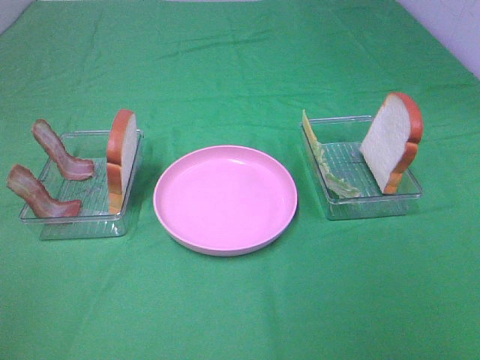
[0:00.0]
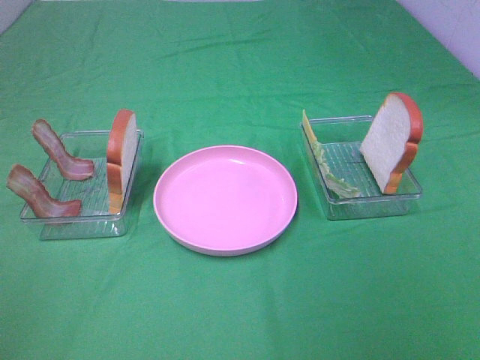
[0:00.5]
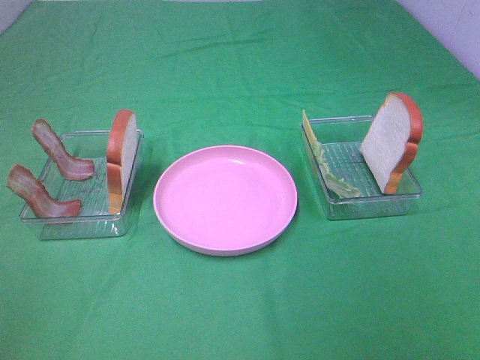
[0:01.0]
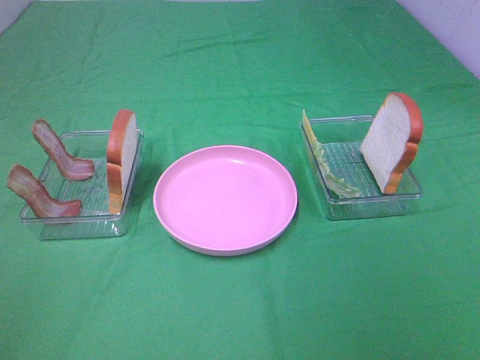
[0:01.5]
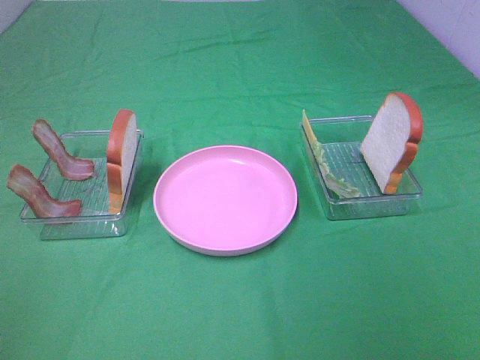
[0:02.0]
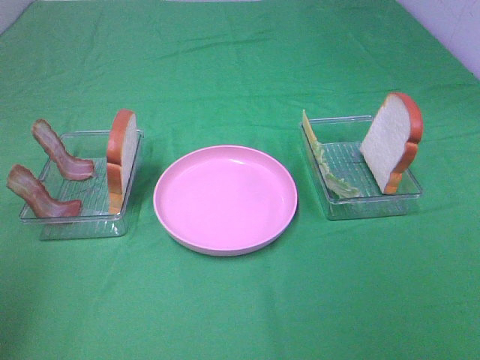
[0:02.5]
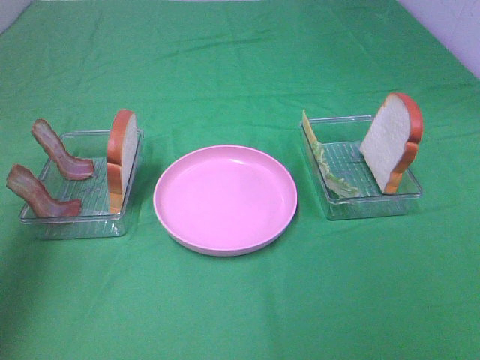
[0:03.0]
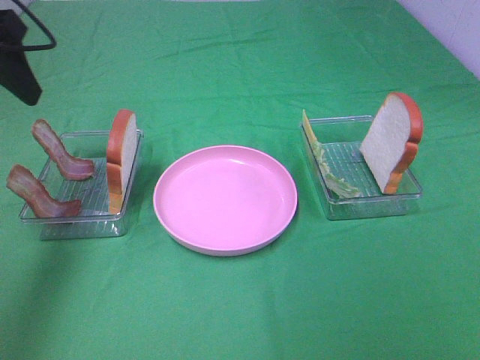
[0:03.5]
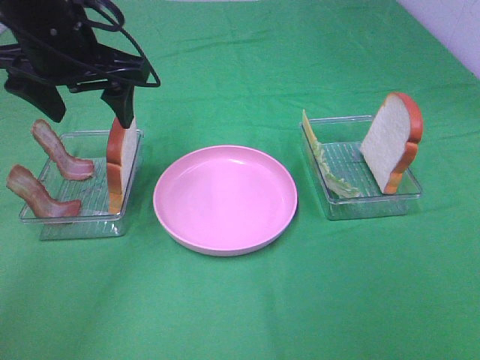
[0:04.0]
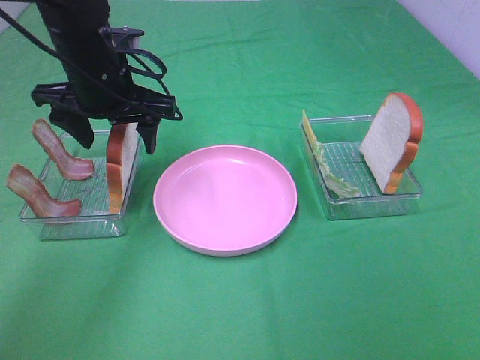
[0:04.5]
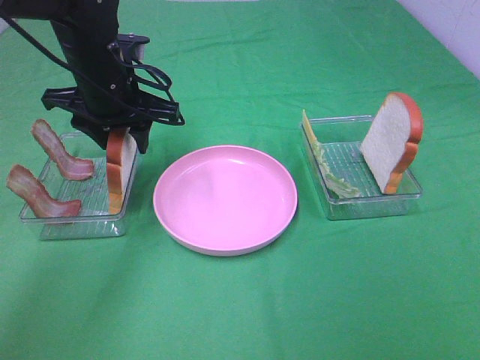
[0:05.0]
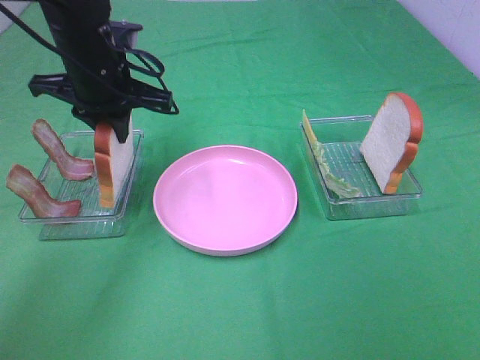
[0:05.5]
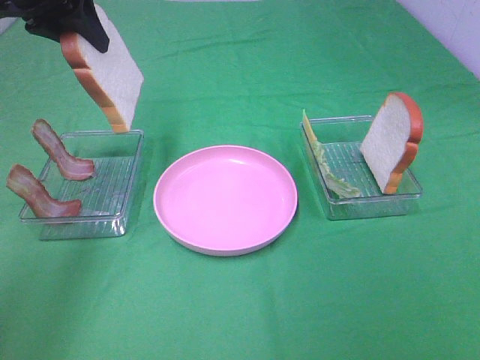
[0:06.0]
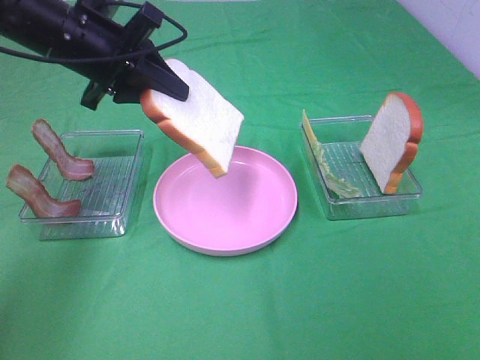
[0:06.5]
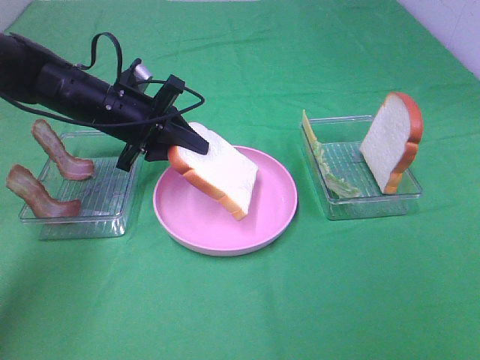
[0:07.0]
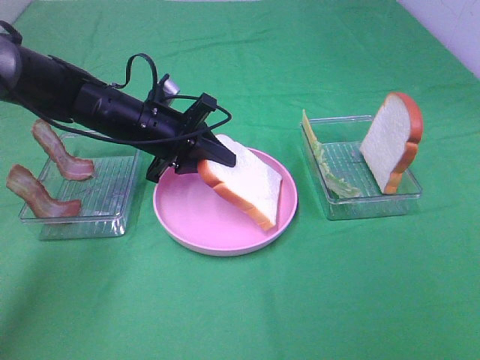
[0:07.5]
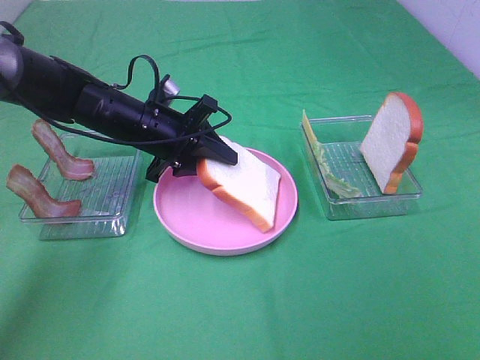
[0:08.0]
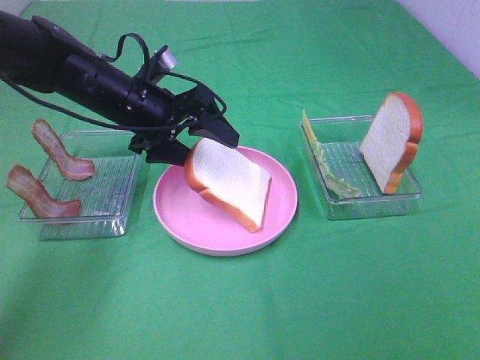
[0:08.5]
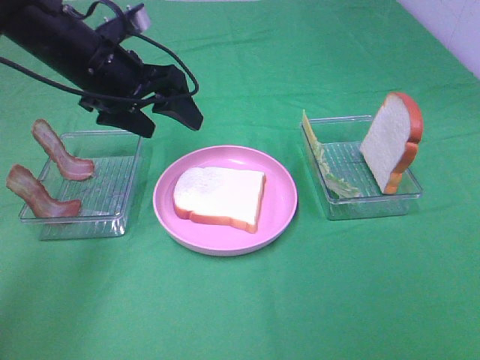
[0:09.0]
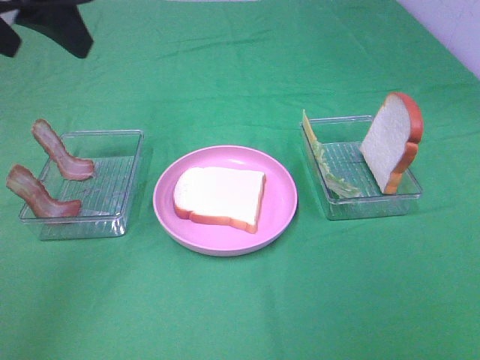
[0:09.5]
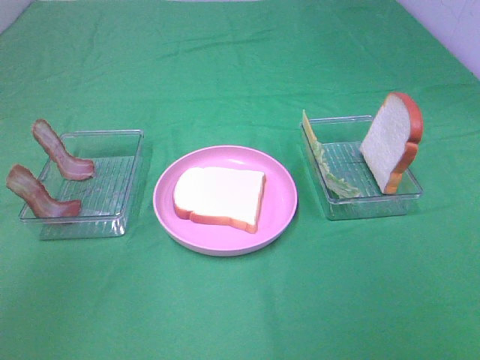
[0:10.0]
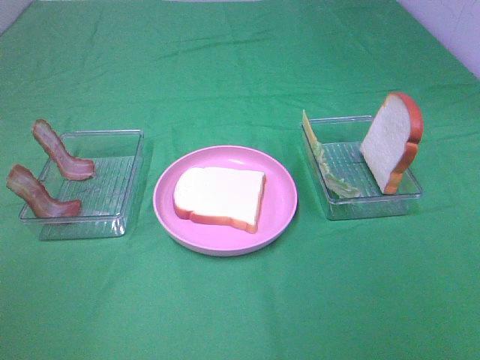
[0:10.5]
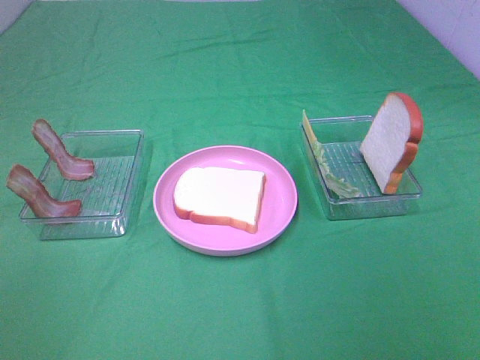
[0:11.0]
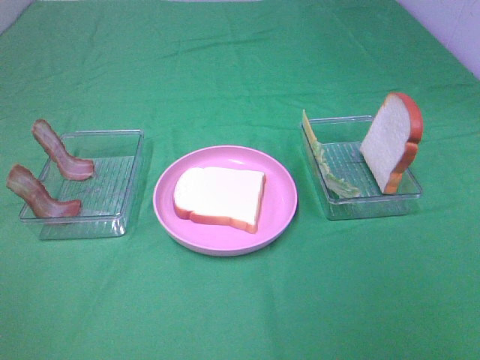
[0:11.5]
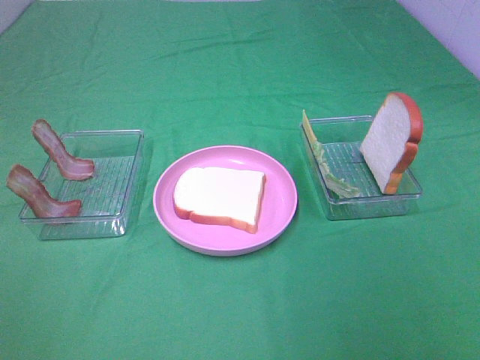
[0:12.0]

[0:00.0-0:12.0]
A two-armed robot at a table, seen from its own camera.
Task of the whole recording: Make sandwiches.
Step, 0:00.0 to 0:05.5: Left hand:grab the bread slice.
Step, 0:06.0 to 0:08.5: Left hand:place the bread slice on the plate.
0:00.0 to 0:02.0: Neither gripper changes place.
0:02.0 to 0:04.0: The left gripper goes approximately 40 cm forward and to the right.
0:04.0 to 0:06.0: The left gripper is displaced upward by about 5 cm, and closes up.
0:06.0 to 0:08.0: The left gripper is displaced downward by about 20 cm.
0:08.0 to 0:10.0: The left gripper is displaced upward, backward and to the left by about 40 cm, and opens its fingers.

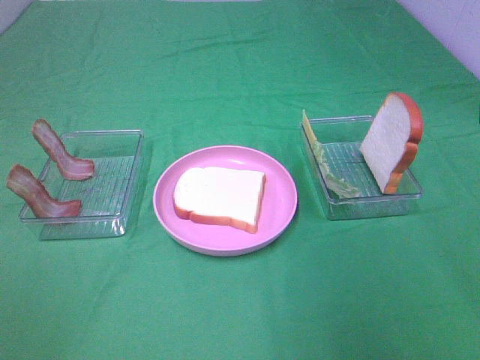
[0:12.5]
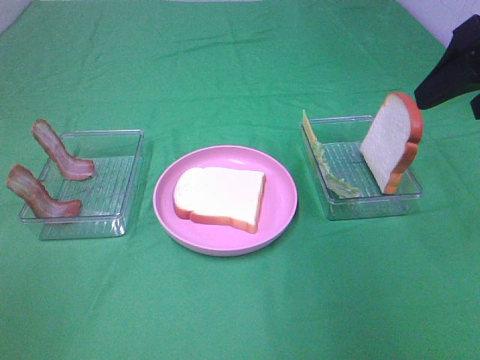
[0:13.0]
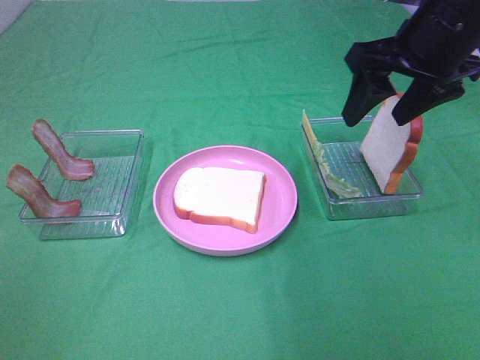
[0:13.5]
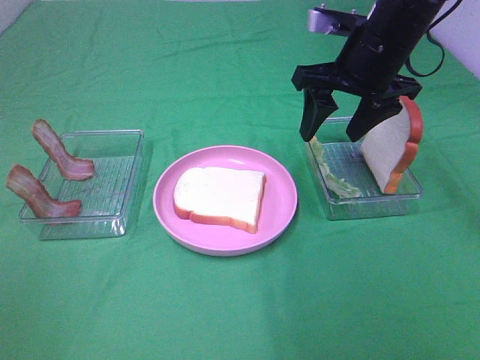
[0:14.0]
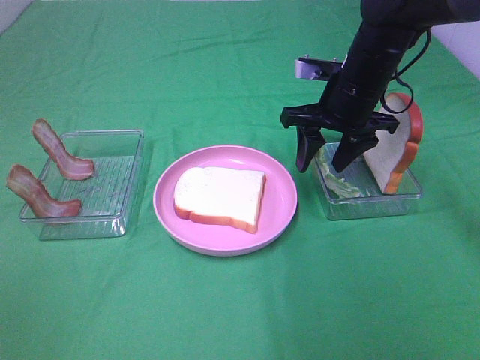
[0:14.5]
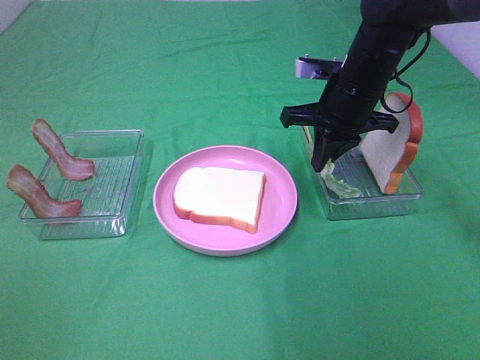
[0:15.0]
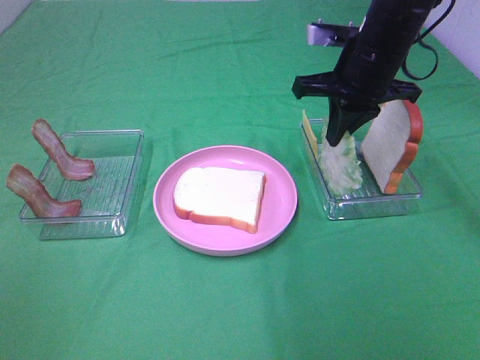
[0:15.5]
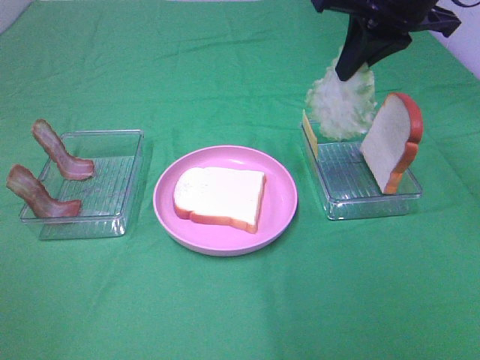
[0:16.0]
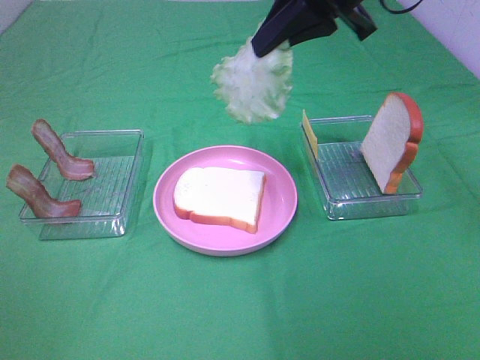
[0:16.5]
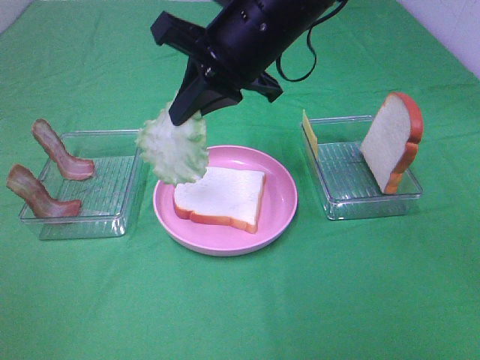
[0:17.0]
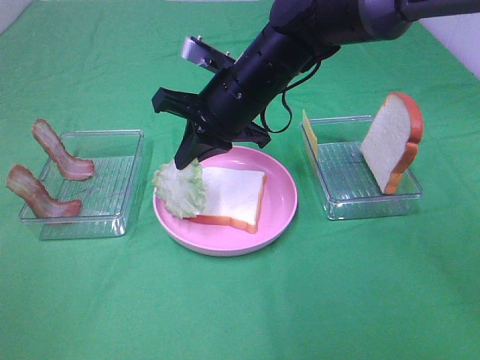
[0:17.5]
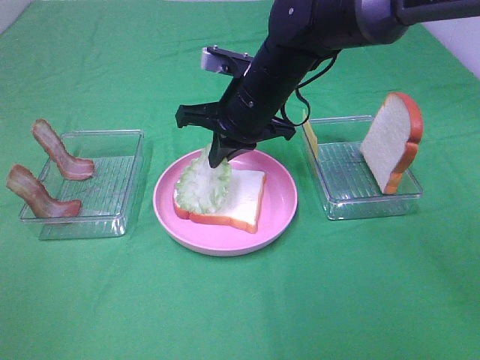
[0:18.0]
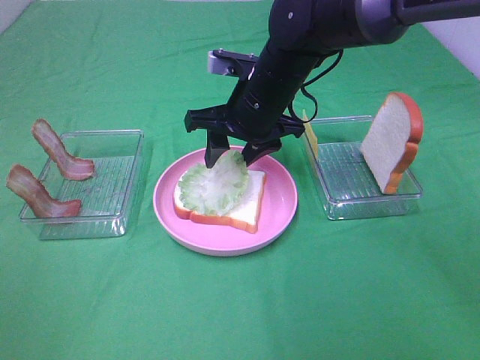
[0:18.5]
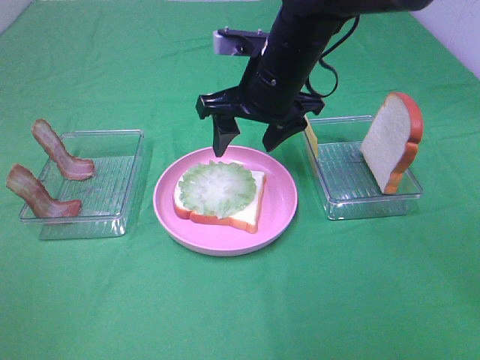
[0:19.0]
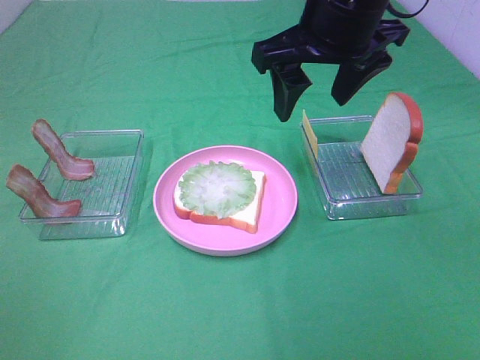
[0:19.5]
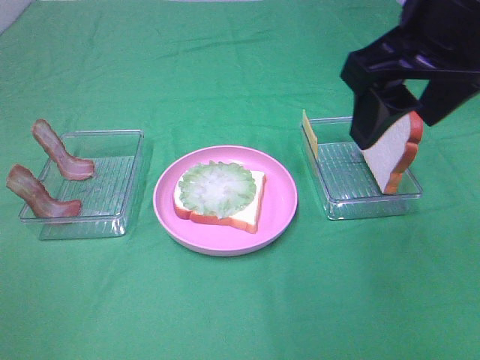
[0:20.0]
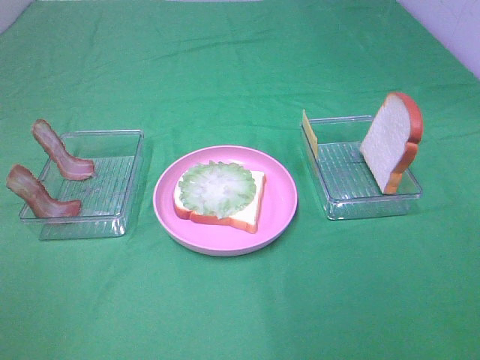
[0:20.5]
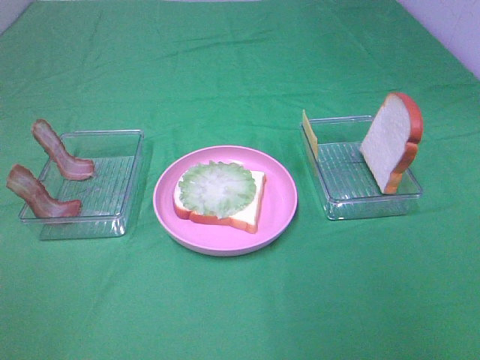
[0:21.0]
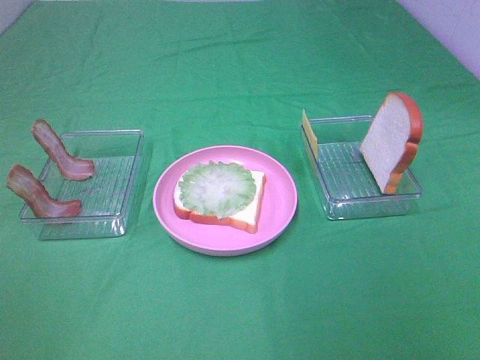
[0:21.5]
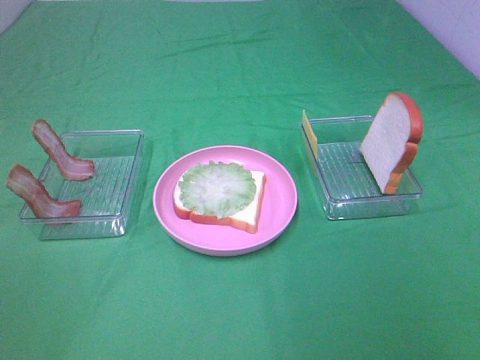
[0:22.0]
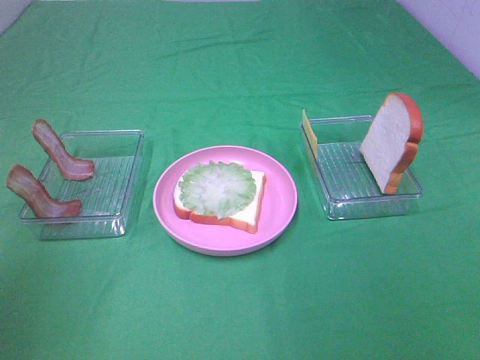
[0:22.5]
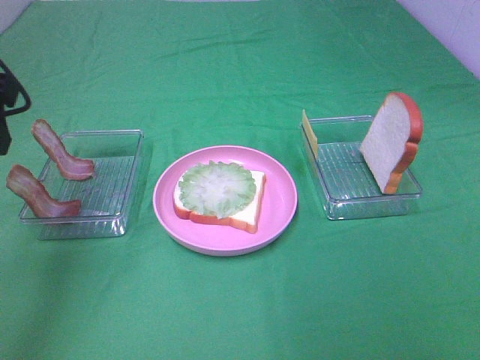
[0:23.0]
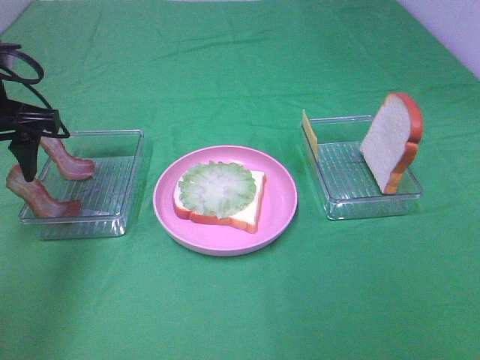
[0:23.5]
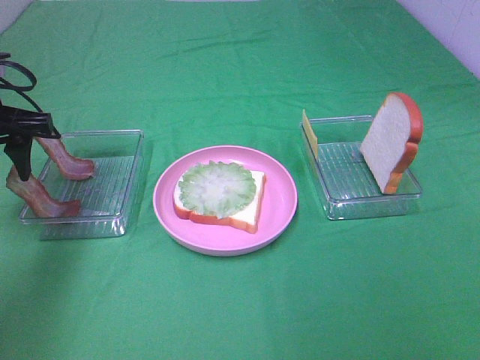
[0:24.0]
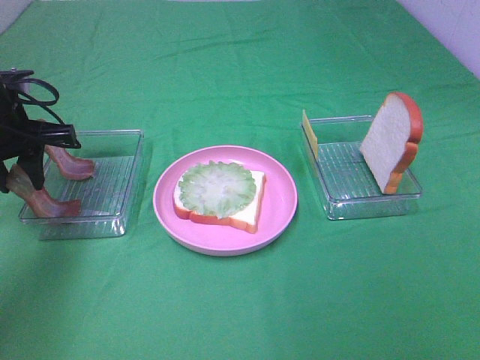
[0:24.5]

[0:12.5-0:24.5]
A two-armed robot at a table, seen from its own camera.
Task of the whole recording: Make sandwiches.
Step, 0:12.5 to 0:15.0: Right hand:grab the lettuce slice.
Step, 0:15.5 to 0:18.5: Right hand:place the lettuce slice on the bread slice.
0:12.5 to 0:14.5: The right gripper travels forward, downward and to the left by roughly 30 cm.
0:14.5 to 0:16.5: The right gripper shifts approximately 15 cm upward, and closes its fingers.
0:16.5 to 0:18.5: The right gripper moves downward and to the left, approximately 15 cm, and opens up.
0:18.5 to 0:20.5: The right gripper moves backward, to the right and upward, approximately 35 cm.
0:20.5 to 0:22.5: The left gripper goes approximately 15 cm forward and upward.
0:22.5 to 0:24.5: The left gripper travels forward and downward by some 30 cm, and closes up.

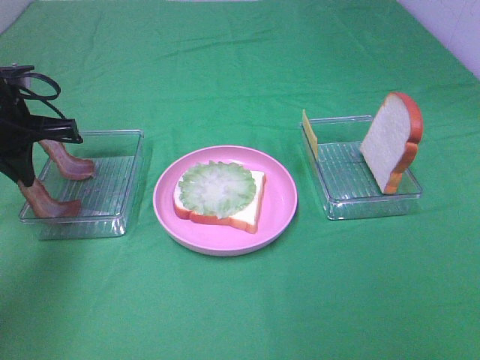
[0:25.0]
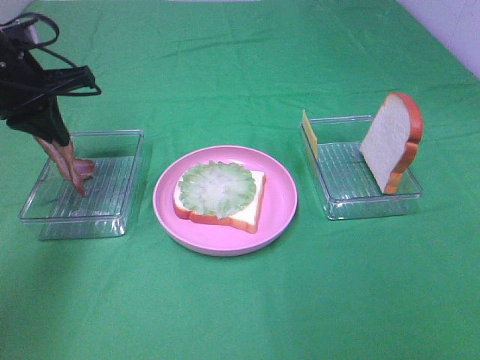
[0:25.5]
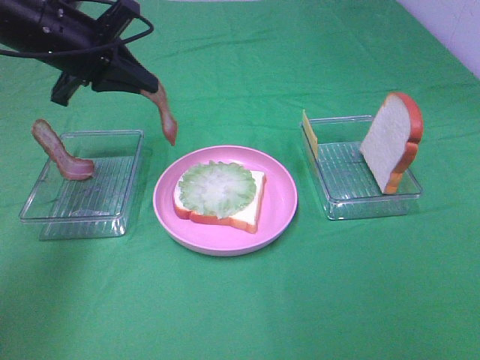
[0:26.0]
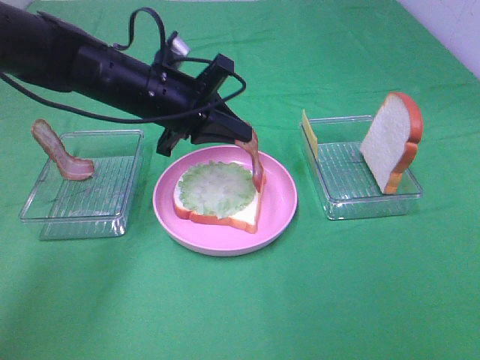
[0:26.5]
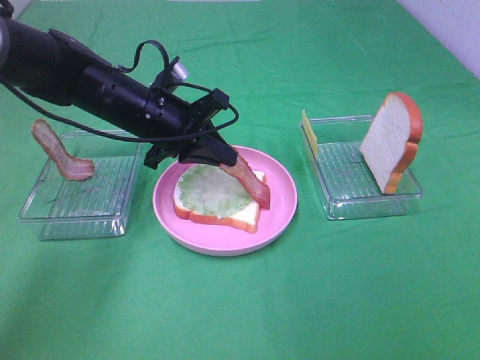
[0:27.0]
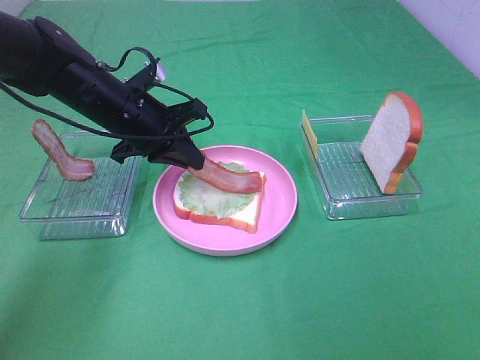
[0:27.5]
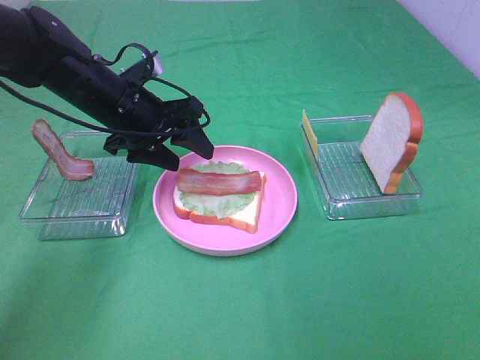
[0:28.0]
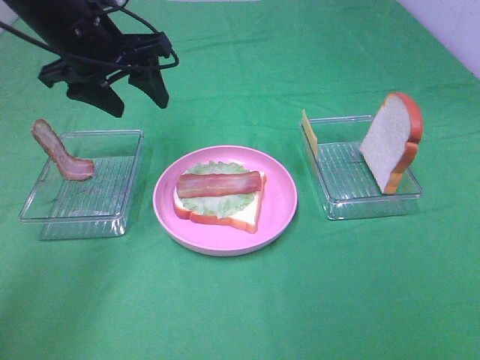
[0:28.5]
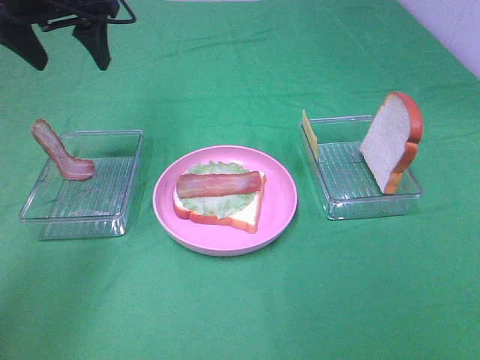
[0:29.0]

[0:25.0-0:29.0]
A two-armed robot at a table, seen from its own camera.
Task of the whole recording: Make sandwiches.
Step, 0:25.5 to 0:28.0: Left hand:place bacon on lettuce slice.
0:25.0 to 0:27.0: The left gripper travels to the right by approximately 15 cm.
0:27.0 to 0:29.0: The left gripper travels upward and to the left by roughly 20 cm, and opens its fingers.
